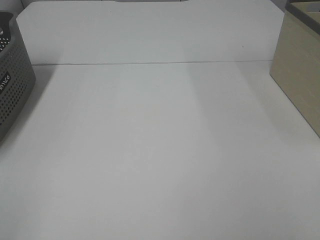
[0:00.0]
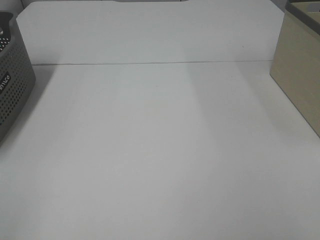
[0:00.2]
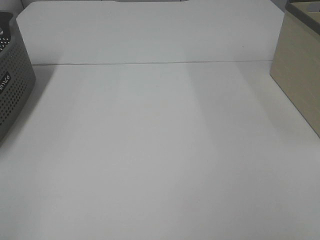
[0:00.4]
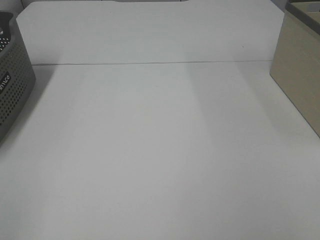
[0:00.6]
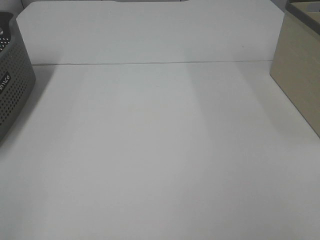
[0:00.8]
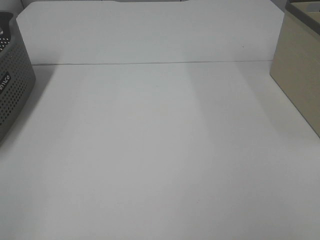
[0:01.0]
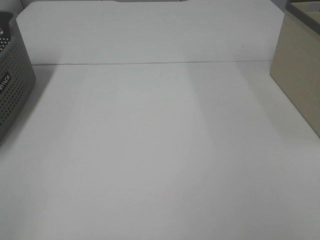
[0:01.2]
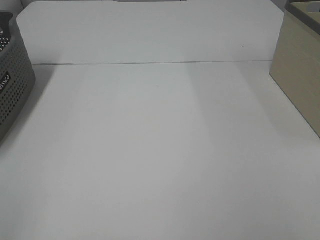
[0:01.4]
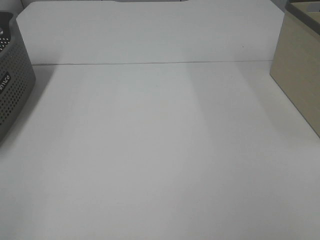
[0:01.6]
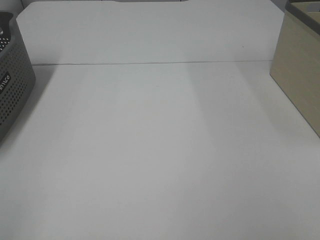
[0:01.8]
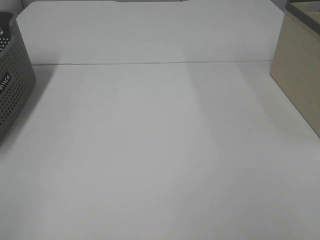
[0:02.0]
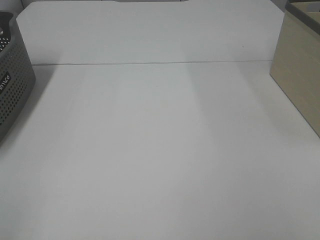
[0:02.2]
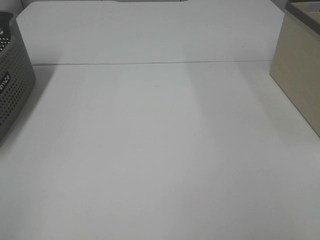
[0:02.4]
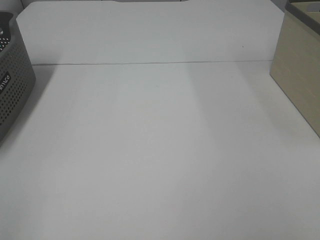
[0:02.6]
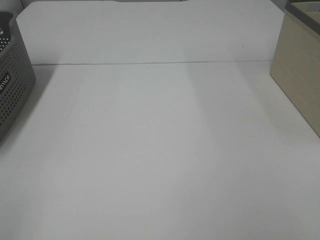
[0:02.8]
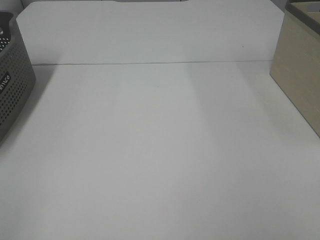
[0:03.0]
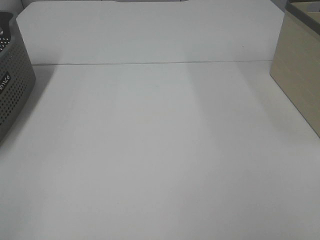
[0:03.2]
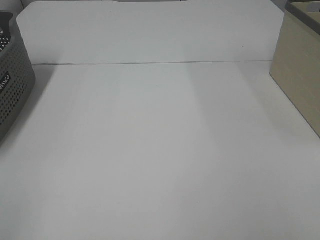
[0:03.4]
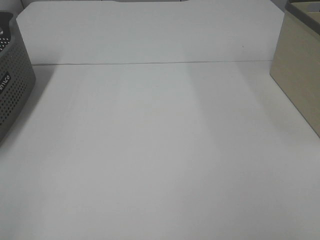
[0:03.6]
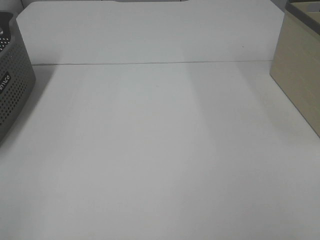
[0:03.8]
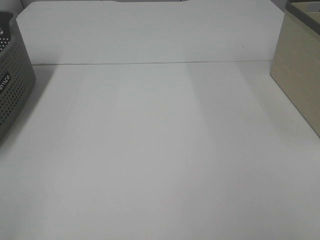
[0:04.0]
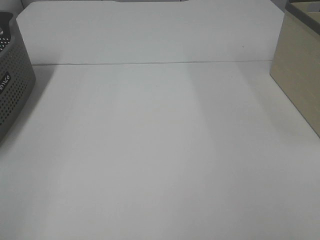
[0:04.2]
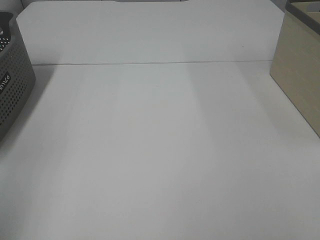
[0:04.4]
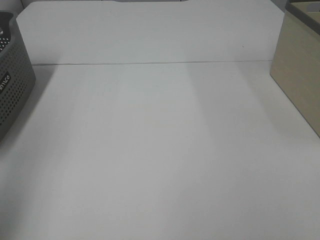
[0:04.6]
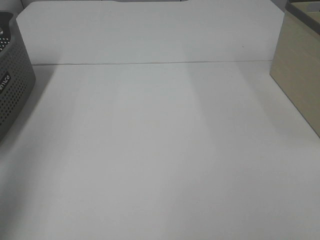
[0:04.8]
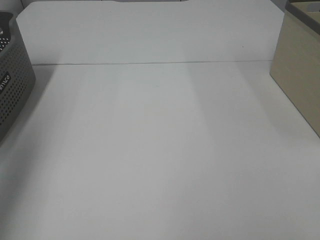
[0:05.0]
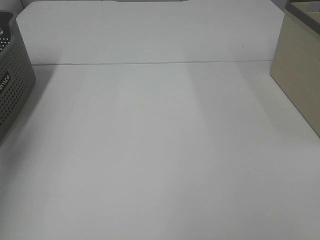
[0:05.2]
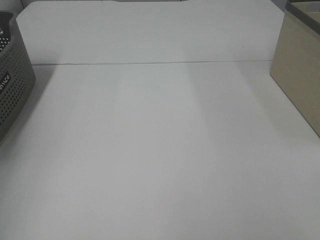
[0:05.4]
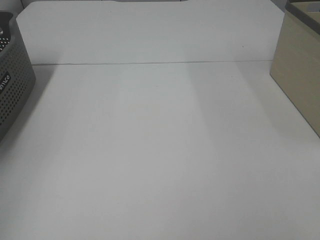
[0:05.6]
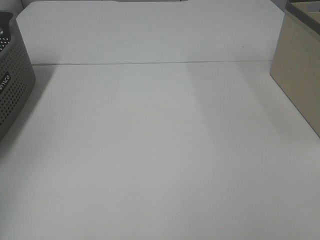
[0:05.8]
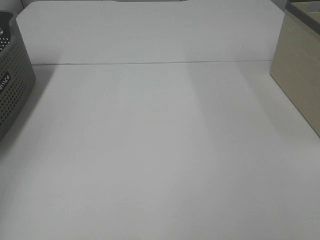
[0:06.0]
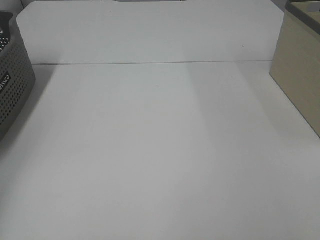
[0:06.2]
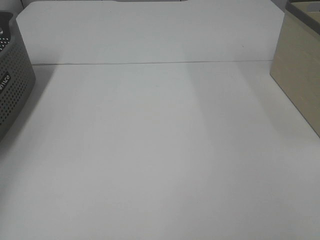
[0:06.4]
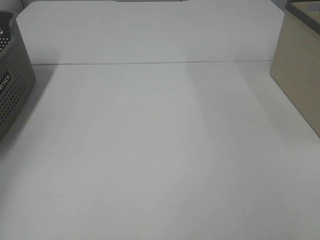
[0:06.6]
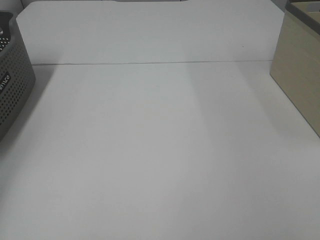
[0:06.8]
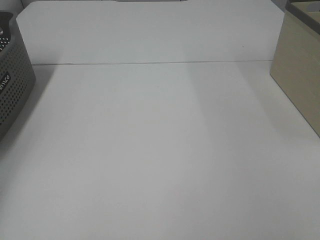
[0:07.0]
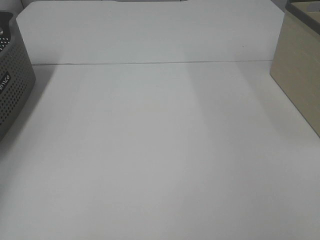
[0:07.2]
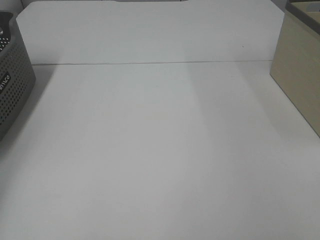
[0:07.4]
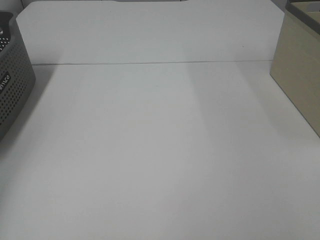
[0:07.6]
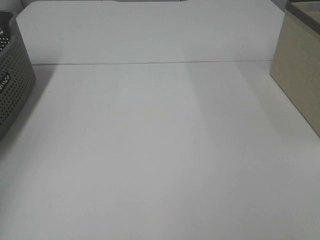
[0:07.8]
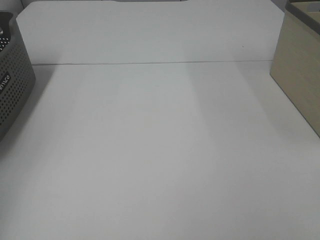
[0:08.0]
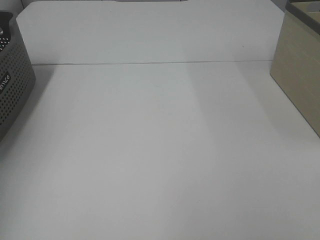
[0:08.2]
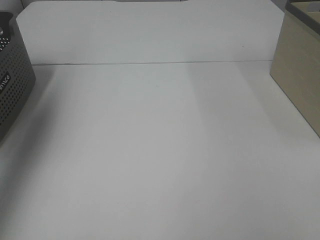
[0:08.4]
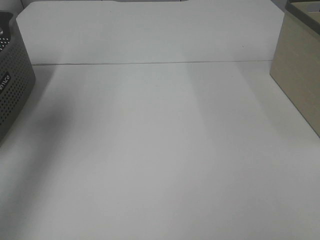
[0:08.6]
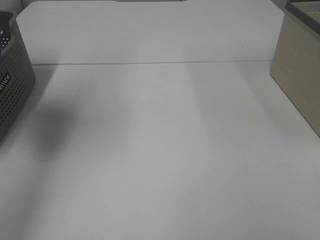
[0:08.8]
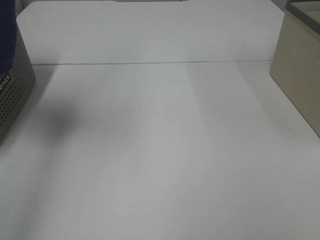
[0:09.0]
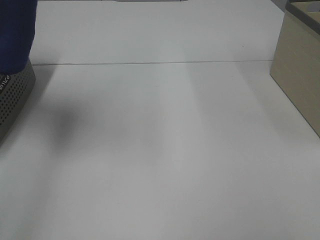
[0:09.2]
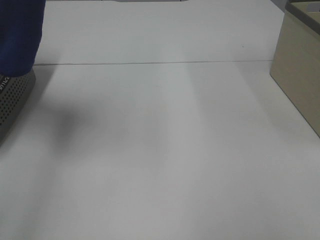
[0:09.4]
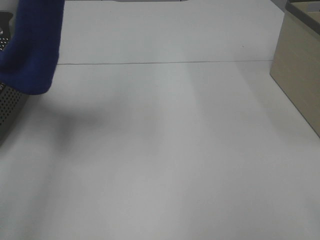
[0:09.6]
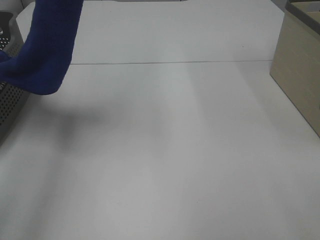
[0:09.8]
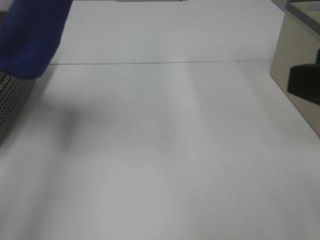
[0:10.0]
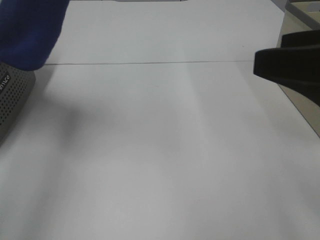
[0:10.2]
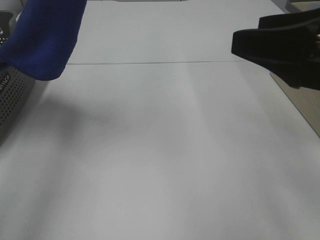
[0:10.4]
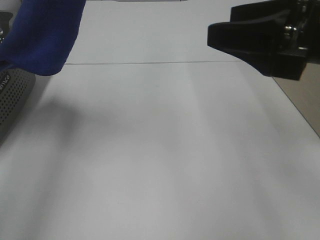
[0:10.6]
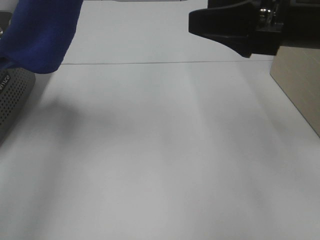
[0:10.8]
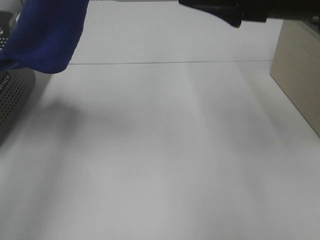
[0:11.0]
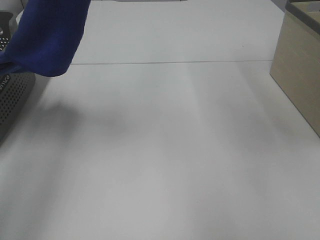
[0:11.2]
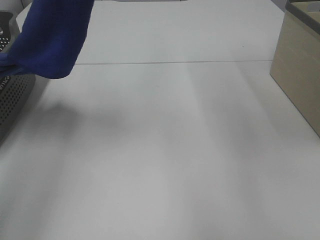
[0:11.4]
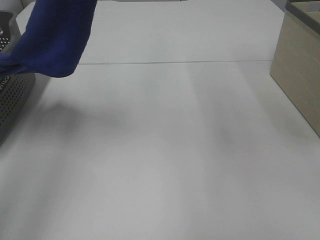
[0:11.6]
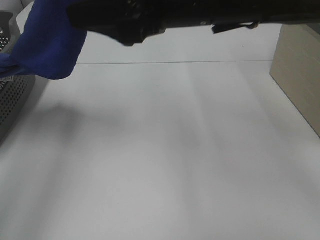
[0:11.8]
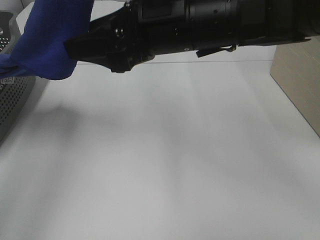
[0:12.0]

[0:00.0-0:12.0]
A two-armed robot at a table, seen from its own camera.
Task of the whole recording: Remove the towel and place it.
0:00.0 to 0:03.0: Both grippers stay put.
0:04.4 to 0:06.0: The left gripper shifts roughly 30 cm forward and to the left.
0:07.6 to 0:09.0: The left gripper shifts approximately 40 cm upward and to the right.
0:09.0 to 0:10.4: The right gripper goes about 20 cm forward and to the left. Meanwhile the left gripper goes approximately 5 cm to the right.
0:10.4 to 0:12.0: The right gripper shifts approximately 20 cm to the left and forward.

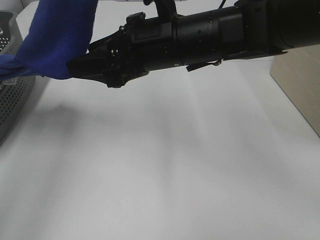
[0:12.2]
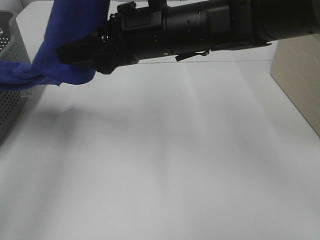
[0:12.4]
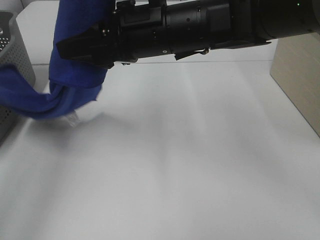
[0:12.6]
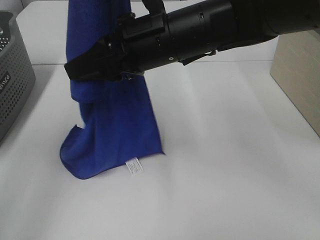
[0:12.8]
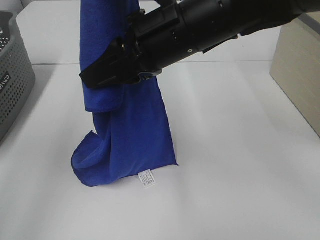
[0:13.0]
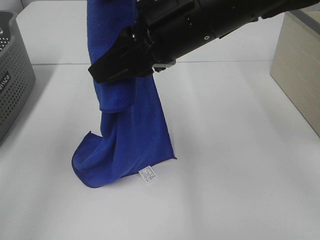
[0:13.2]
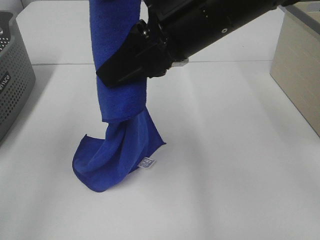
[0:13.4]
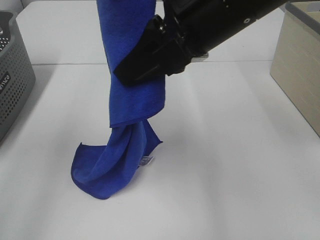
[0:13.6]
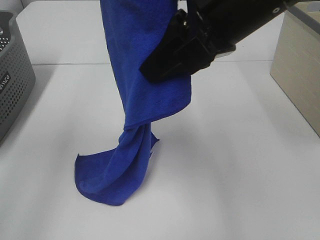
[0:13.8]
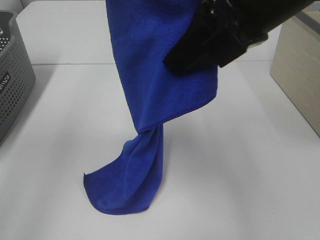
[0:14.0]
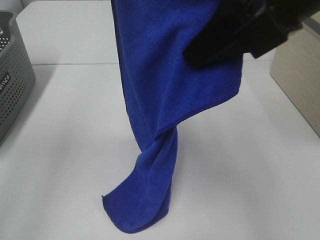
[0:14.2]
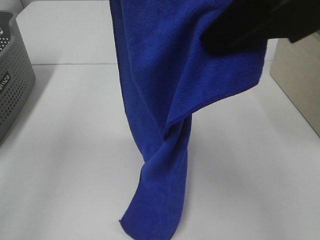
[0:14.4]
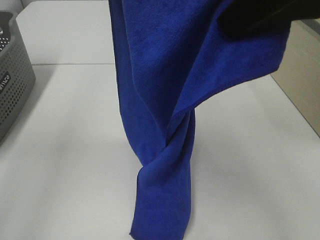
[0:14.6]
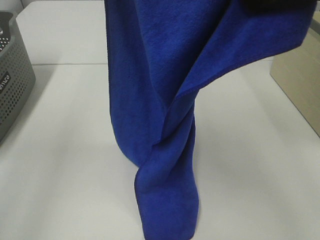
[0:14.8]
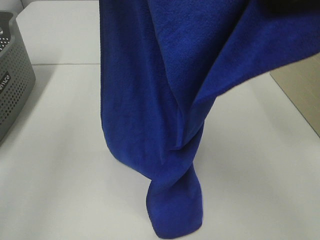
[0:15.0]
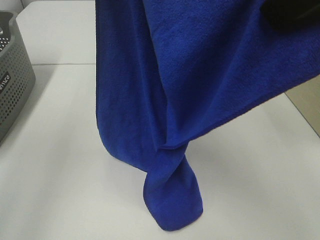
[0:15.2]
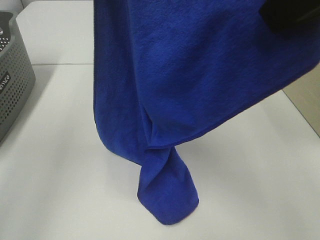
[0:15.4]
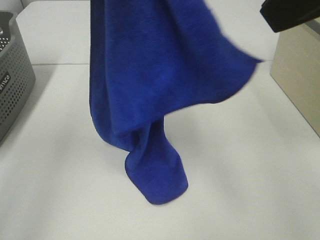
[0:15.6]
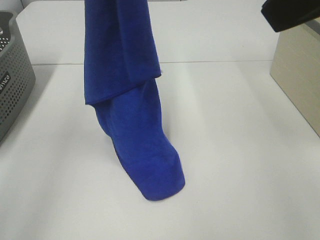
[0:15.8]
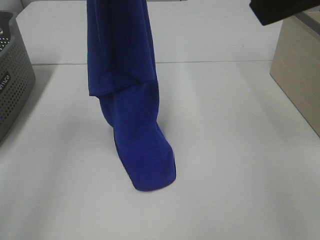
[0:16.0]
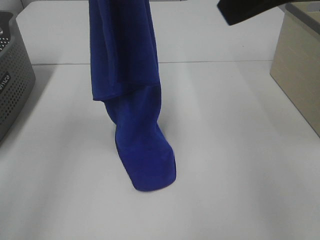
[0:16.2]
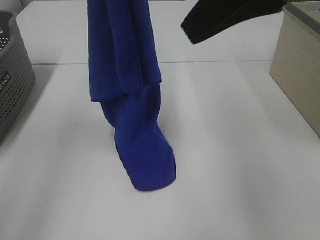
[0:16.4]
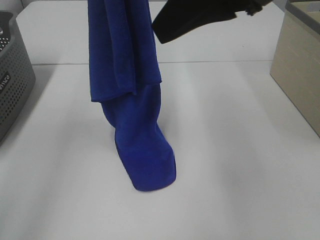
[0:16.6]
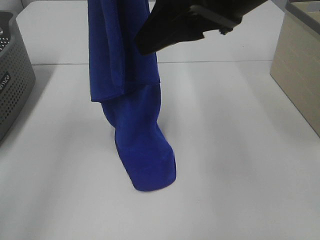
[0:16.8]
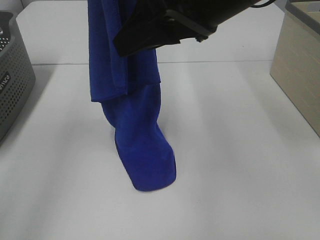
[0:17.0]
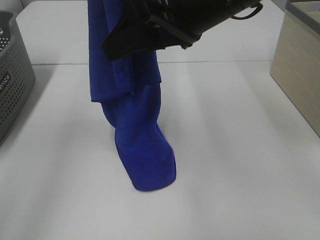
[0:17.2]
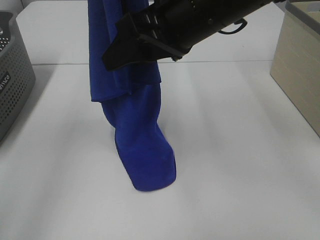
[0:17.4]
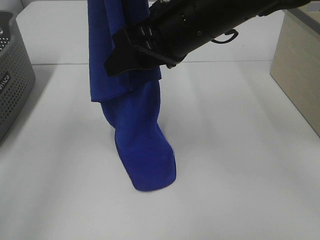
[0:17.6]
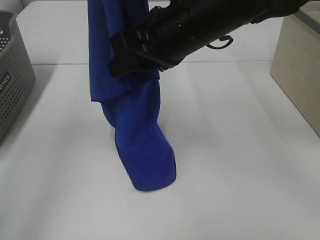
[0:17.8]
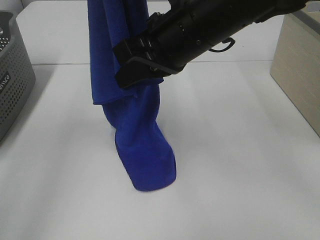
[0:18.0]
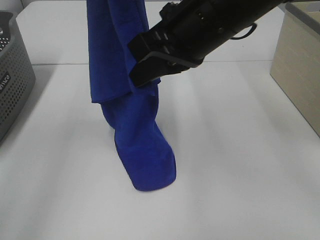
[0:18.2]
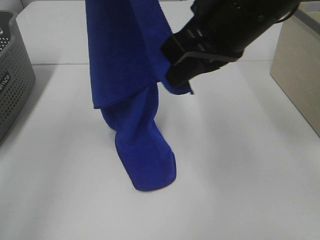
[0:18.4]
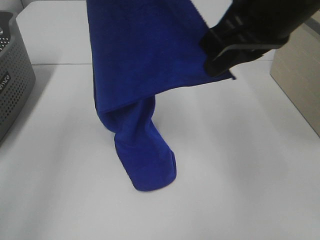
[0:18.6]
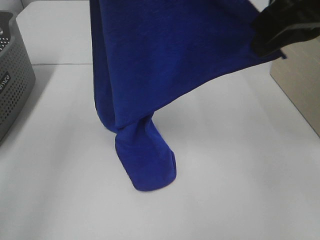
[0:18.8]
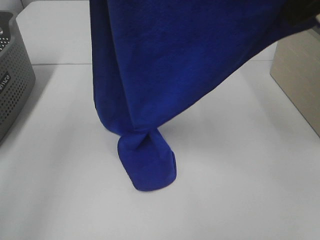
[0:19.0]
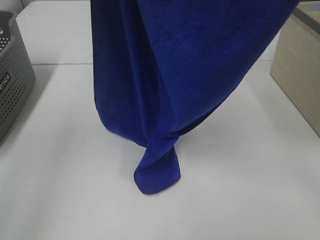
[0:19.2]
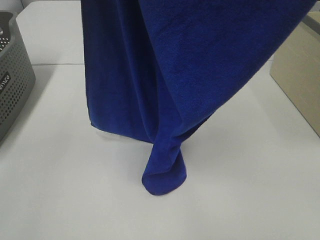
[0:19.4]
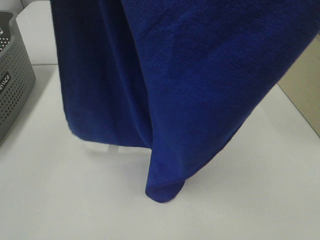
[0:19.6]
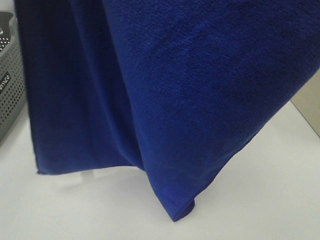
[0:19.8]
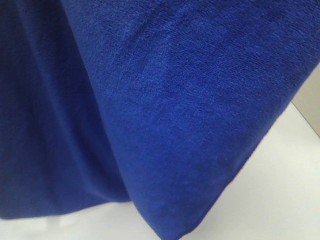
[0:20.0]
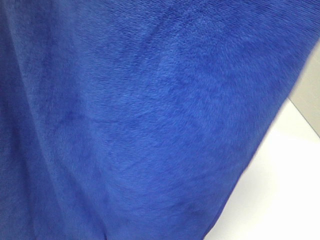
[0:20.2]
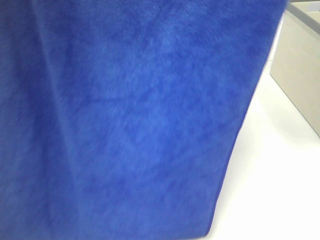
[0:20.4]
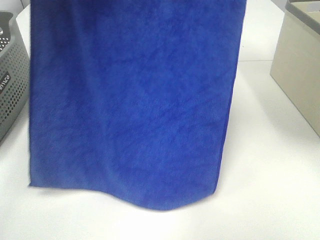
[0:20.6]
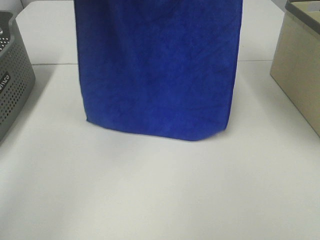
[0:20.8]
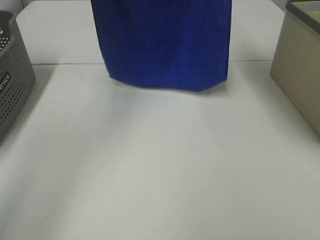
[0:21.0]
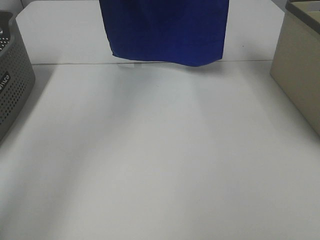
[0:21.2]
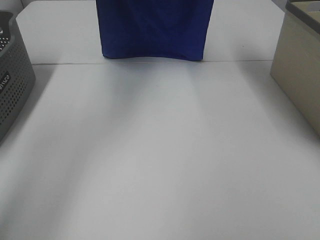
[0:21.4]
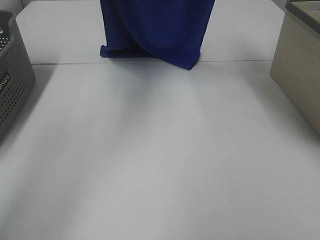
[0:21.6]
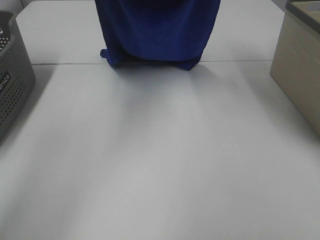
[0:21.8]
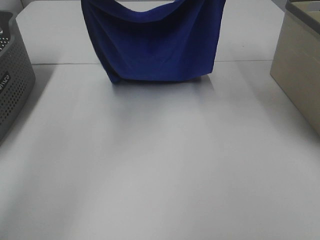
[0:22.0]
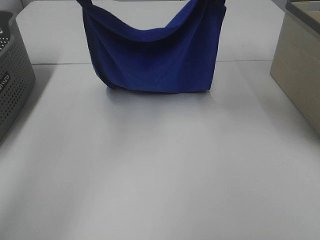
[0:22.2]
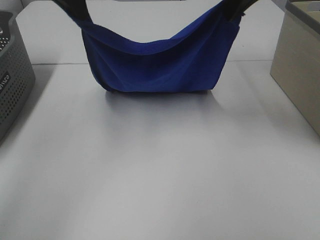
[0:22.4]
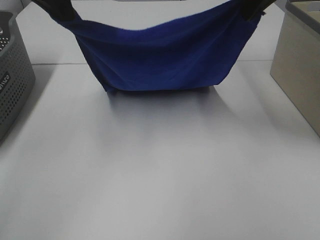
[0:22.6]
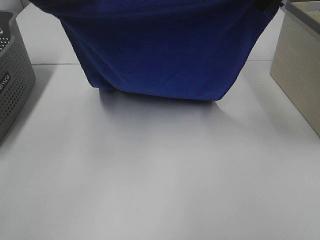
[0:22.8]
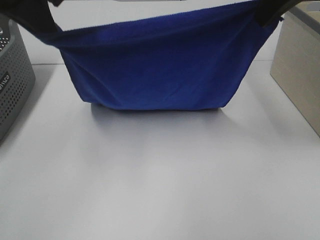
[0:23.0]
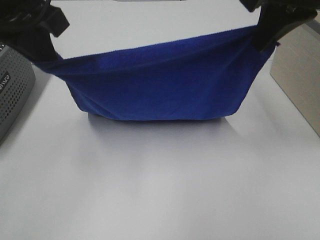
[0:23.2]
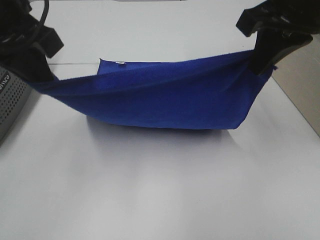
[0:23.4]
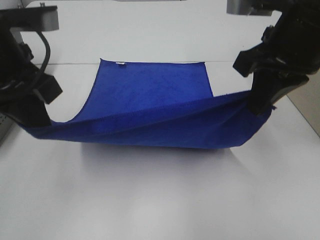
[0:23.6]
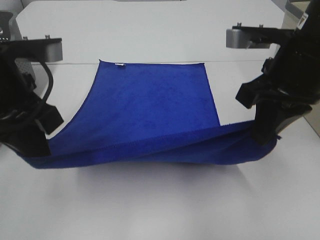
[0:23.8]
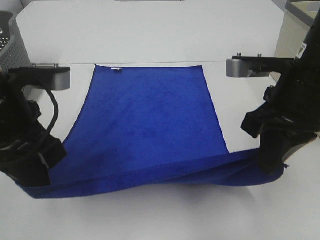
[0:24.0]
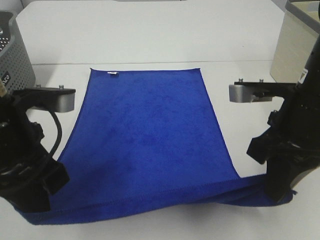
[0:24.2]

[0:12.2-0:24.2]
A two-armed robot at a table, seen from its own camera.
Task of the whole recording: Remove the towel and place it.
Step, 0:12.2 to 0:16.4: Right hand: grab a corner of the blue towel and straighten it.
Step, 0:16.6 to 0:23.4: Left hand: spread the blue towel flat on the table.
Step, 0:16.6 to 0:23.4: Right hand: spread the blue towel flat on the table.
0:12.2 to 0:13.8: The right gripper heads upward, backward and to the right, covering roughly 15 cm, and closes its fingers.
0:13.8 to 0:15.2: The right gripper heads upward, backward and to the right, covering about 15 cm.
0:15.2 to 0:16.6: The right gripper moves forward, to the left and downward, roughly 10 cm, and opens up.
0:16.6 to 0:18.2: The right gripper travels downward by some 10 cm, and closes up.
0:18.2 to 0:19.8: The right gripper is displaced upward, backward and to the right by approximately 35 cm, while the left gripper is displaced backward by about 15 cm.
0:19.8 to 0:21.2: Both grippers move forward, approximately 30 cm.
0:21.2 to 0:22.6: The grippers both shift downward and backward by about 15 cm.
0:22.6 to 0:24.2: The grippers both shift downward and backward by about 20 cm.
